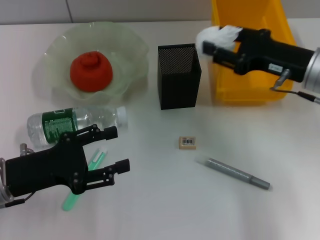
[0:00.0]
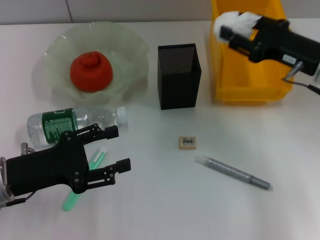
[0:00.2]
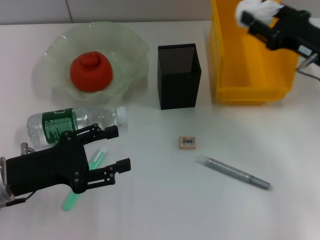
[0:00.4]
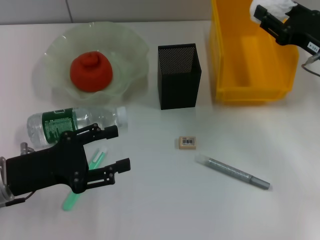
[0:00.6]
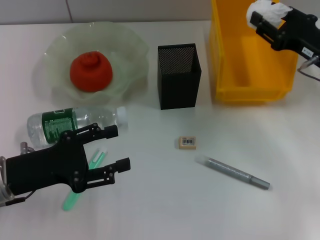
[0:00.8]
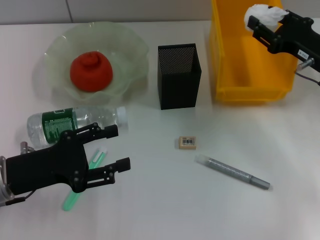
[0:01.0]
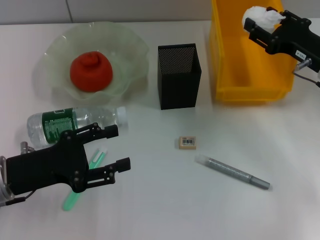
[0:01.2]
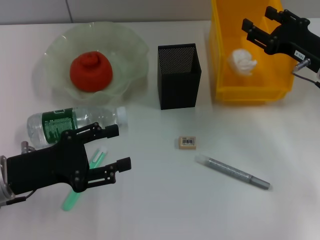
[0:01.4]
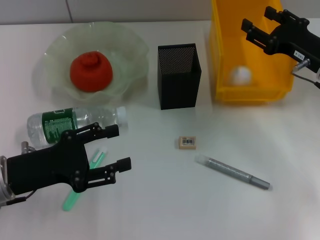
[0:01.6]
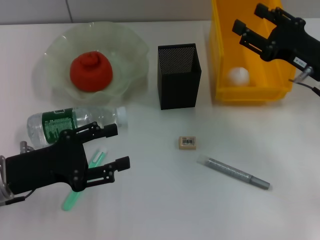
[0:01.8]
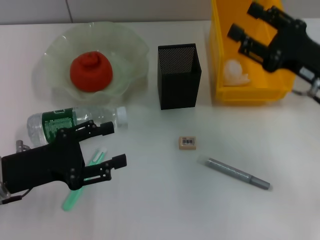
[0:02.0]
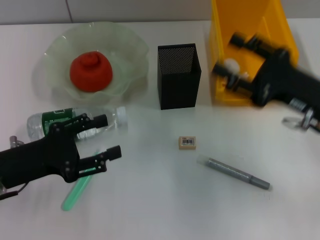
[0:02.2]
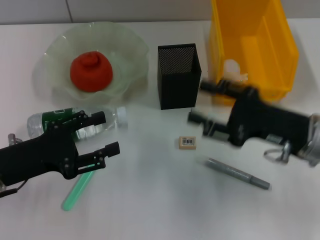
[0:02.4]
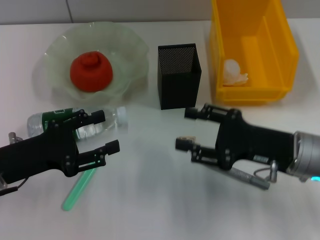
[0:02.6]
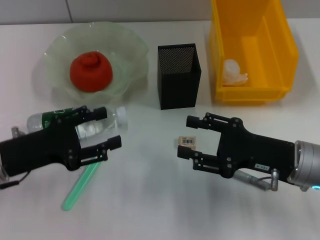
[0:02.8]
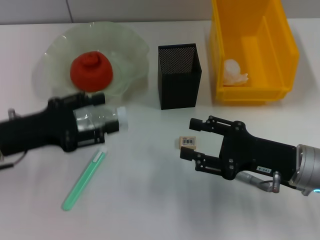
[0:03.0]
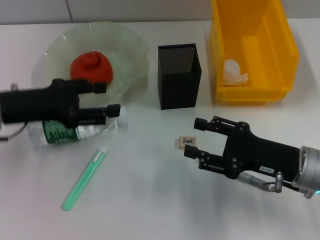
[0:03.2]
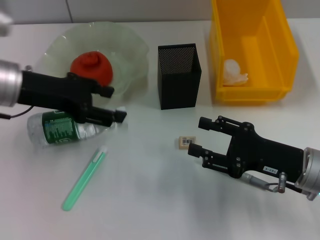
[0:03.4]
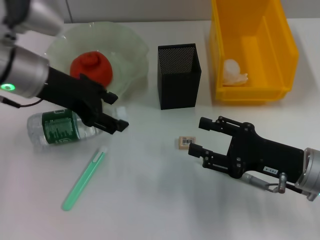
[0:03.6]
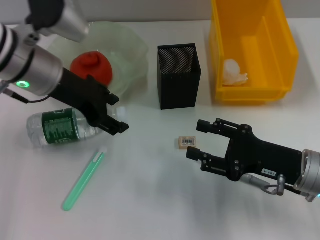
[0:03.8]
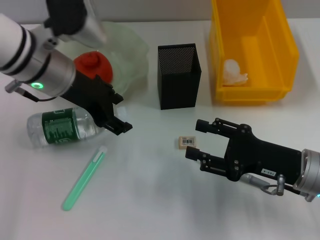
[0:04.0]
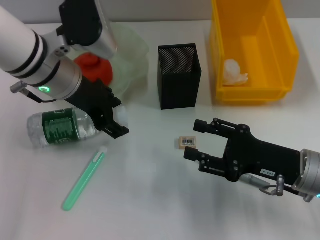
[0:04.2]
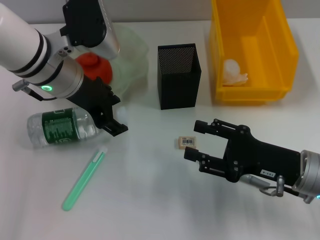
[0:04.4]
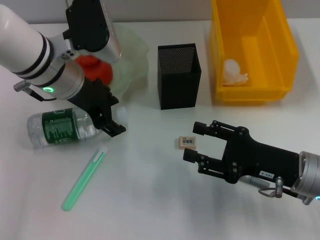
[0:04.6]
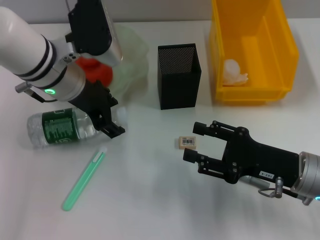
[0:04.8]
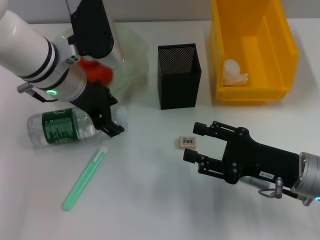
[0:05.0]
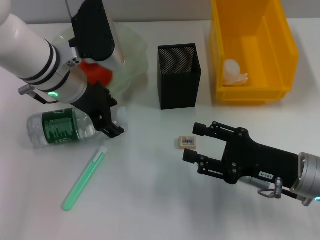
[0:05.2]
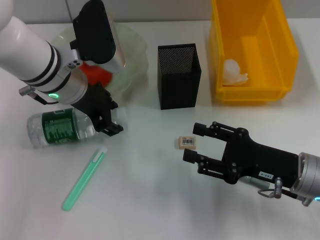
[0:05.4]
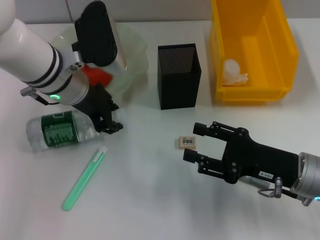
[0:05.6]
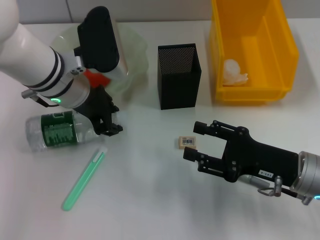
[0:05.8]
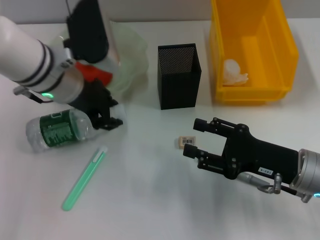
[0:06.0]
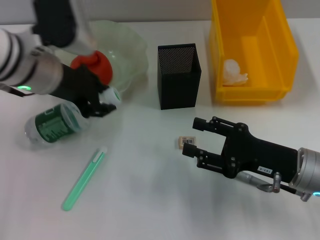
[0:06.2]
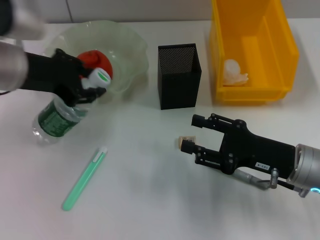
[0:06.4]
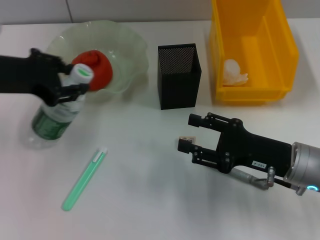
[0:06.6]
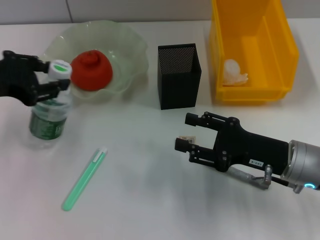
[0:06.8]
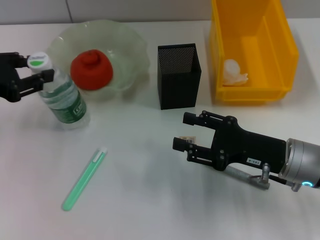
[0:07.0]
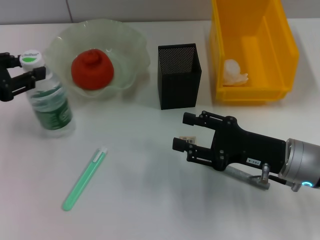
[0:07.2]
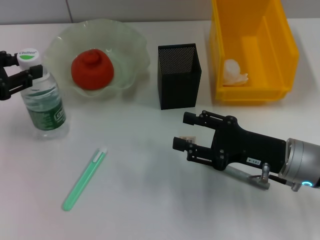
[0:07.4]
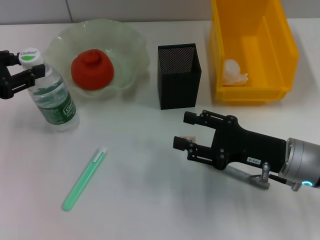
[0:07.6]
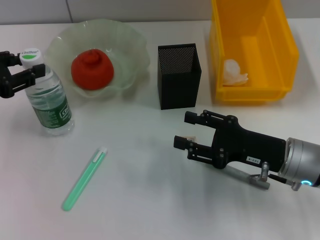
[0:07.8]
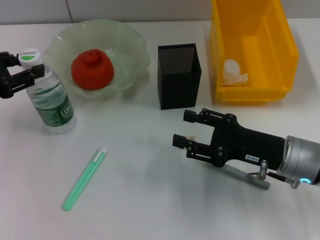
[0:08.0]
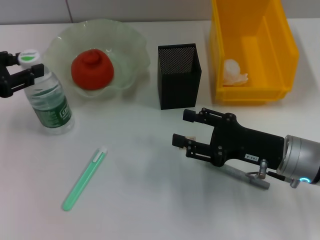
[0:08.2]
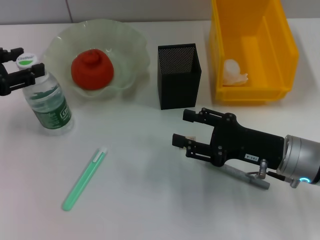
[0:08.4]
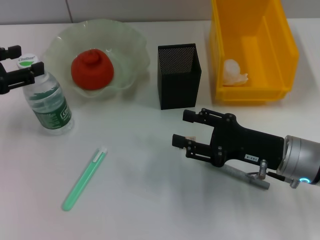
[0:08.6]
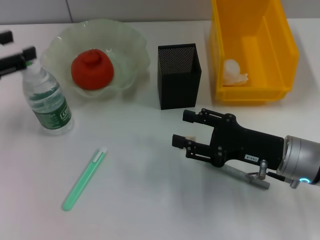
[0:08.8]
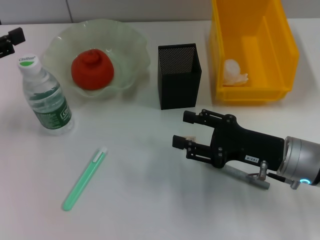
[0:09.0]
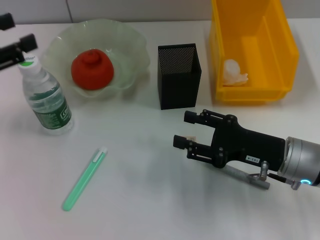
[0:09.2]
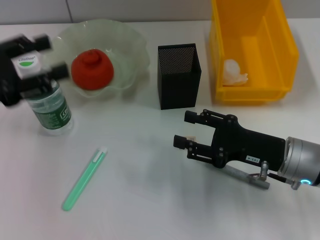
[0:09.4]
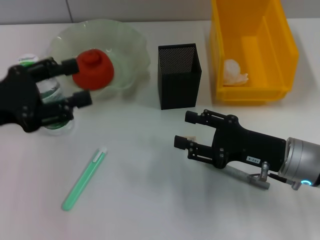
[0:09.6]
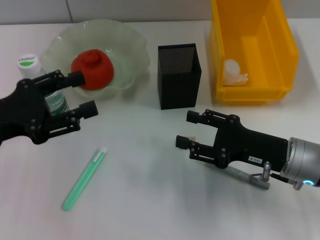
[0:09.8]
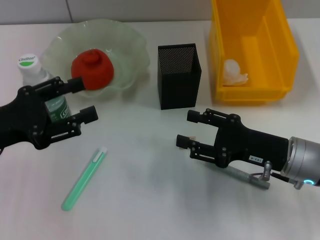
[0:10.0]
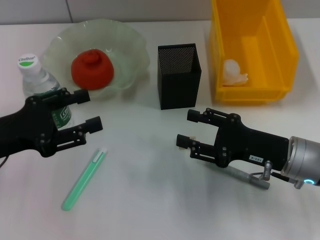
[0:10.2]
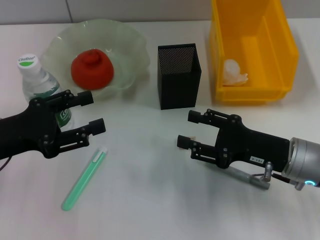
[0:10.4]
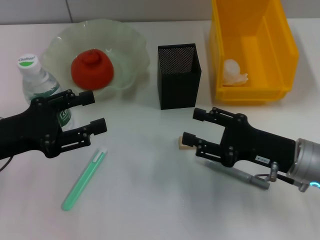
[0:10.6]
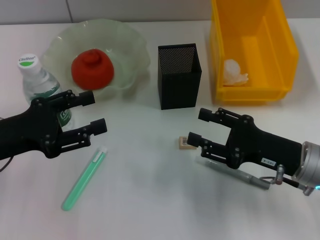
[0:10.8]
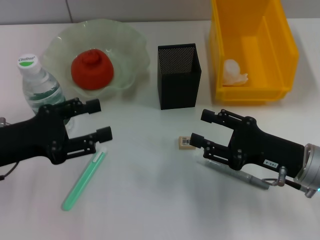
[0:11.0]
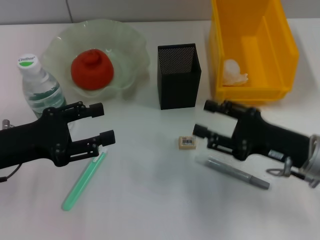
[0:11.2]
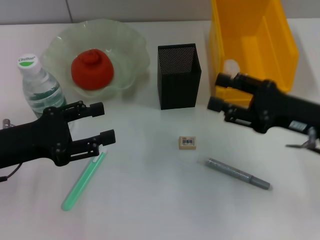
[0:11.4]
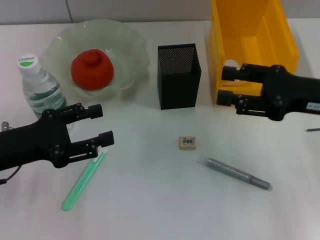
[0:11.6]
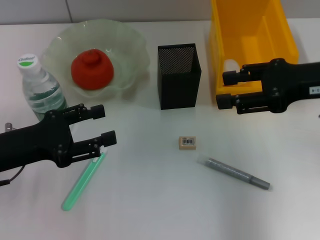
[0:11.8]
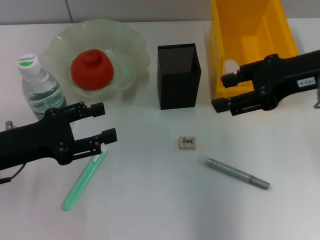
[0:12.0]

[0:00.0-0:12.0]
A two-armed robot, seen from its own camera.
Step, 0:00.0 to 0:01.8: Place the paper ball into the trash can with the right hand.
Step, 0:02.2 to 0:06.0: Grab the water bottle with the left hand.
Step, 0:06.2 to 0:09.0: Place the water bottle on the table with the left hand.
0:00.0 to 0:01.6: The right gripper shifts by approximately 5 cm.
0:01.6 to 0:03.0: The right gripper is displaced backward by approximately 10 cm; the left gripper changes place by roughly 5 cm.
0:03.0 to 0:04.4: The left gripper moves to the right, forward and upward, some 15 cm.
0:04.4 to 0:06.0: The left gripper closes.
0:06.0 to 0:07.6: The left gripper heads to the left and backward, covering about 20 cm.
0:07.6 to 0:09.0: The left gripper opens.
0:09.0 to 0:10.4: The left gripper moves downward and to the right, some 10 cm.
0:10.4 to 0:12.0: The right gripper goes some 20 cm upward.

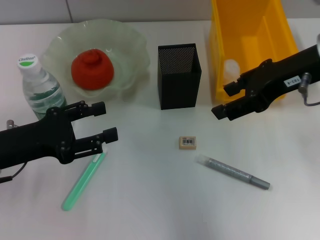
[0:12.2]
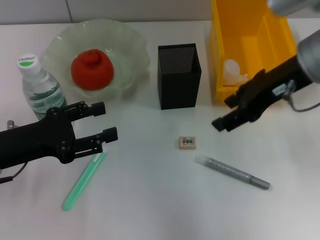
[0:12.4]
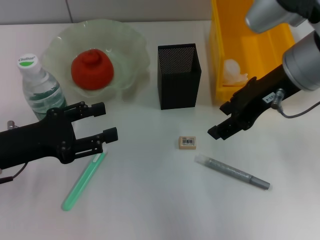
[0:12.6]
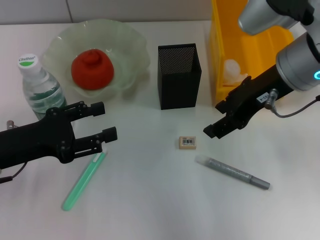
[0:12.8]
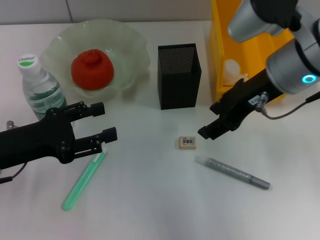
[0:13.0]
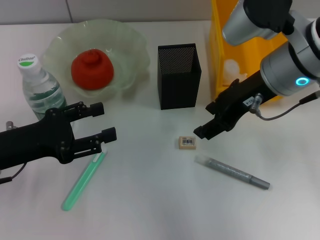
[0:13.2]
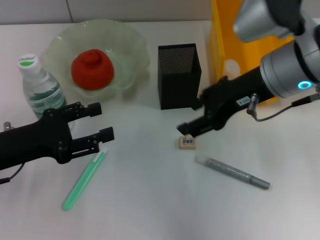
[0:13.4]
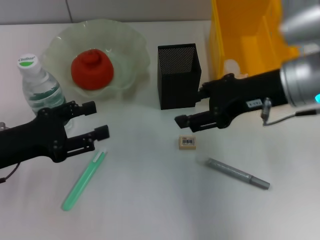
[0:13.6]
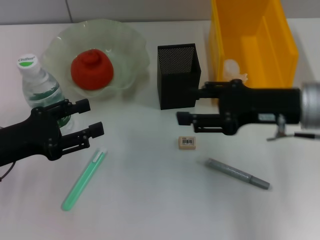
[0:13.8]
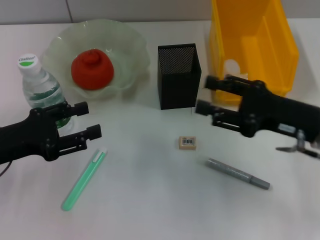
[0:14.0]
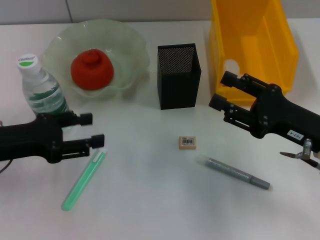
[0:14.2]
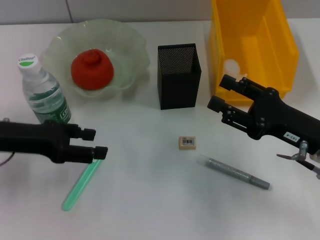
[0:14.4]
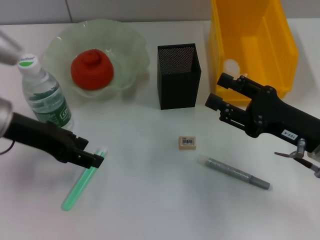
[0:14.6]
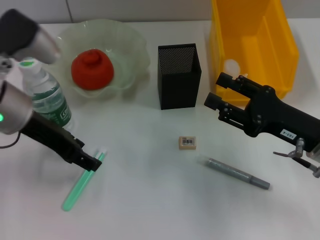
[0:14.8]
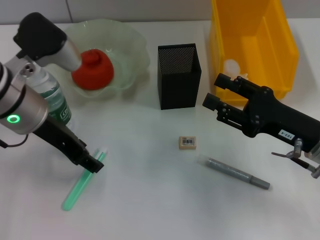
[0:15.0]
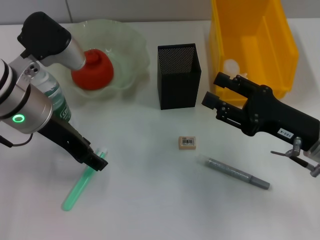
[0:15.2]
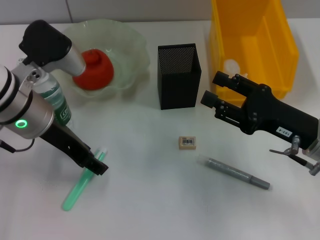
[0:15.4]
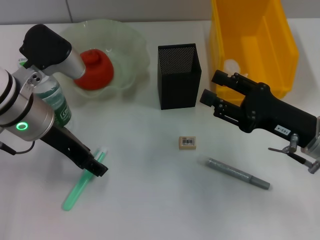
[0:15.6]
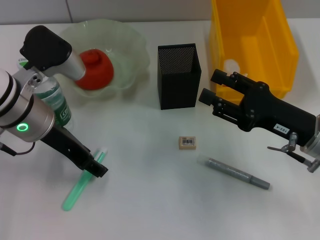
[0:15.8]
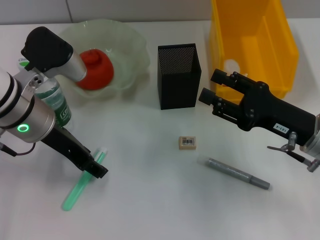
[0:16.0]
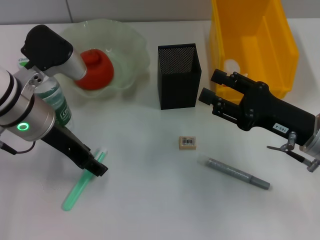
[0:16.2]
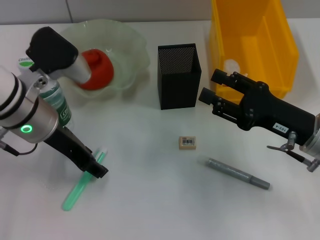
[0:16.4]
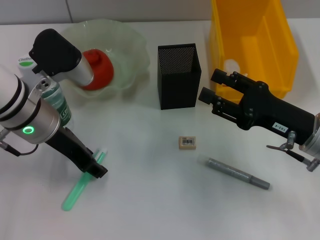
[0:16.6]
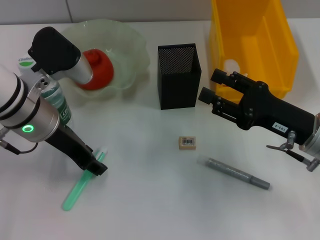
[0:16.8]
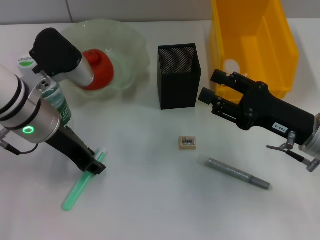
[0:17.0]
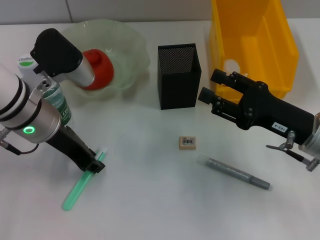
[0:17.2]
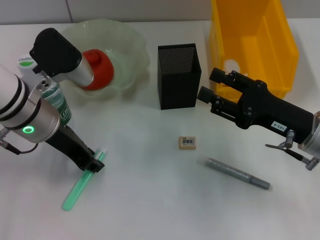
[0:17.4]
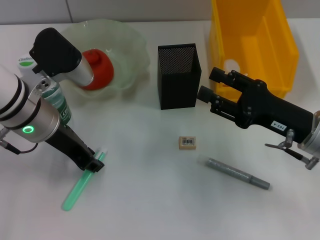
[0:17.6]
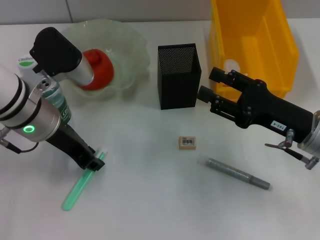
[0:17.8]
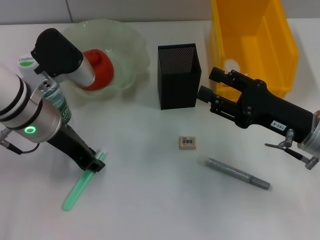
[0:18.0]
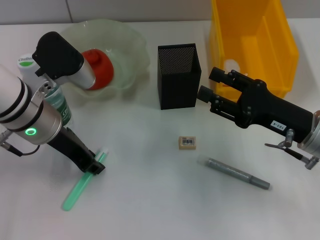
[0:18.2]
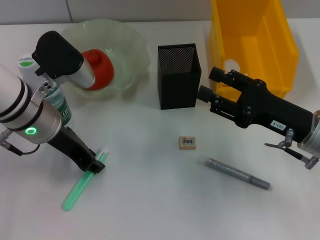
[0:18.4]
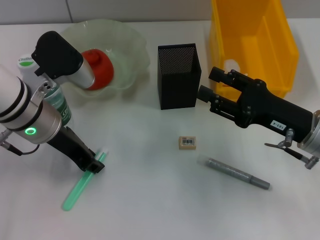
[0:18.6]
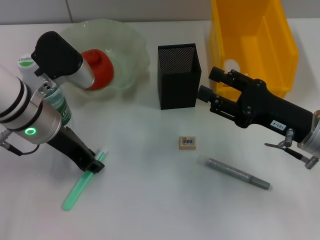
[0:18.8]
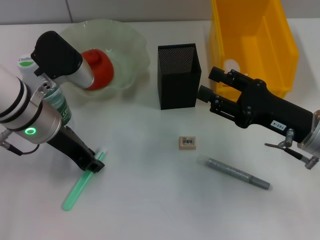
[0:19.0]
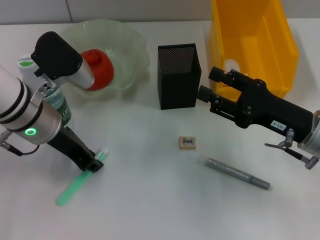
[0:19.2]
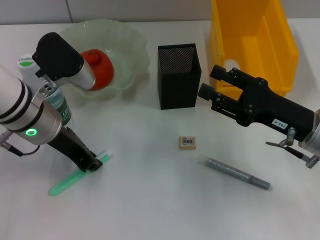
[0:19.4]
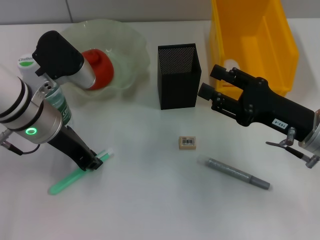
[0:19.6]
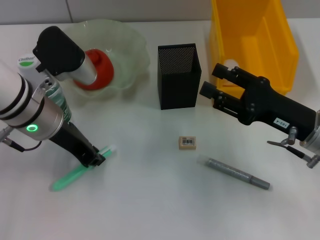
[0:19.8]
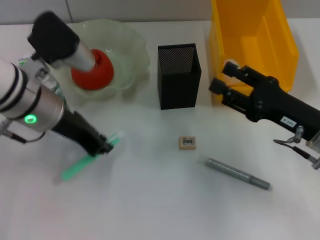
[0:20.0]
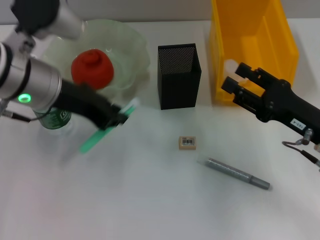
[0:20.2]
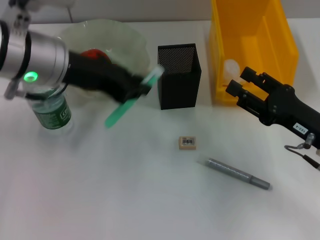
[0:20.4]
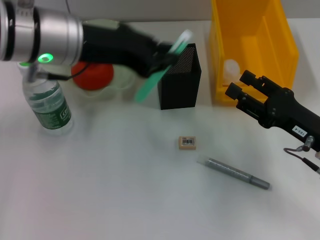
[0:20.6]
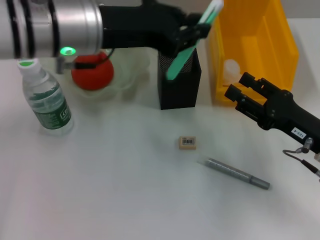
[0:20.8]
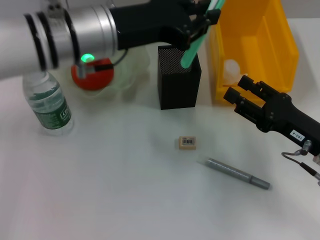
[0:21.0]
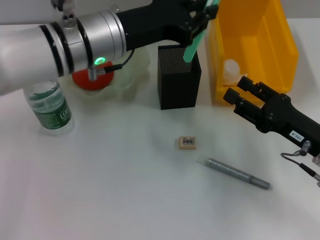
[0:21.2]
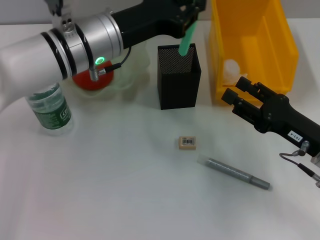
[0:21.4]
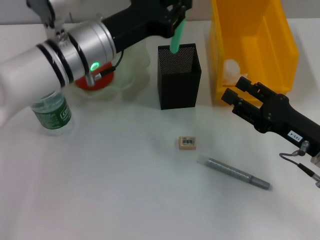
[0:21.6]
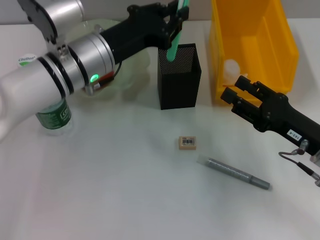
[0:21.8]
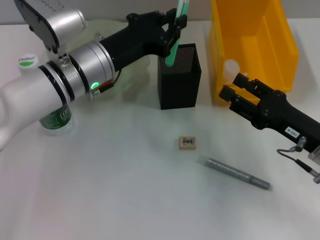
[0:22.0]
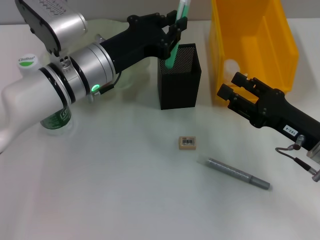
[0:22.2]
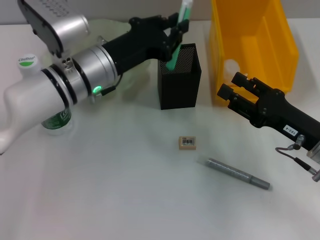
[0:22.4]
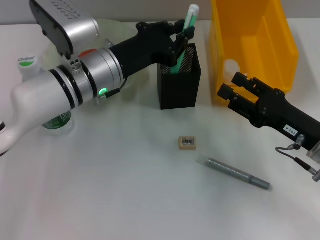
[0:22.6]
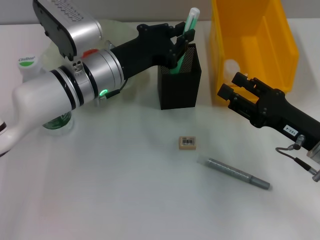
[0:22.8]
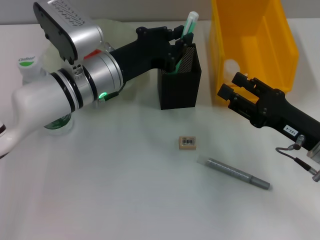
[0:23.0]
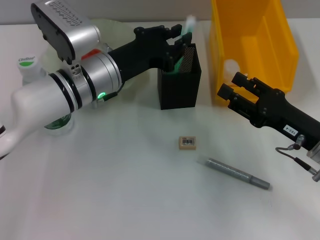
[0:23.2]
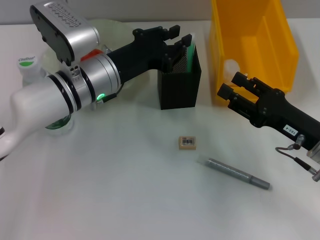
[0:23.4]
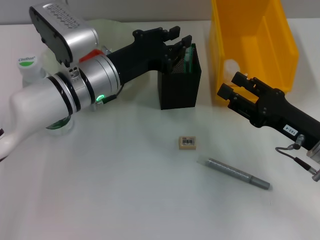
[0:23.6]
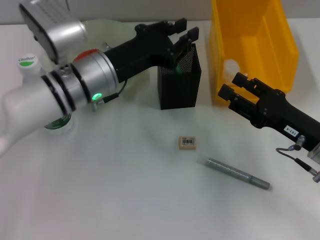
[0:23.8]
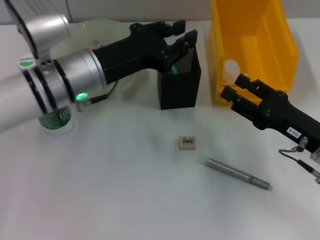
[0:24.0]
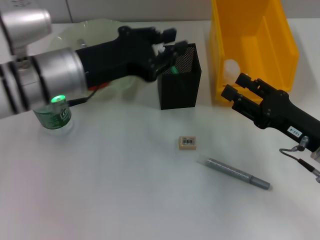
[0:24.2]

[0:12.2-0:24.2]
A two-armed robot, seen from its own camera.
Step, 0:12.2 to 0:19.4: Grab the blue utility knife with the left hand.
Step, 0:19.6 to 0:23.4: Place the blue utility knife into the pen holder with the left hand.
0:12.2 to 0:13.8: The right gripper moves downward, approximately 10 cm.
0:13.8 to 0:15.2: The left gripper moves to the right, forward and upward, some 15 cm. The right gripper is displaced downward by approximately 10 cm.
0:15.2 to 0:16.6: The grippers stay close to where they were, moving slightly.
0:16.6 to 0:18.2: The left gripper closes up.
0:18.2 to 0:19.8: The two grippers keep their place.
0:19.8 to 0:21.2: The left gripper travels to the right by roughly 5 cm.
0:21.2 to 0:22.6: The left gripper goes about 5 cm downward.
0:22.6 to 0:24.2: The left gripper moves approximately 5 cm.
